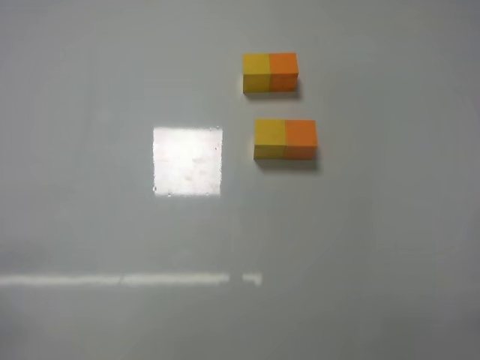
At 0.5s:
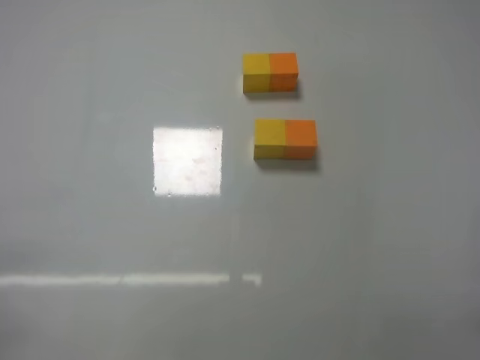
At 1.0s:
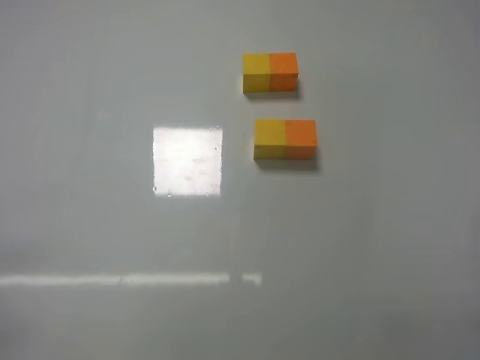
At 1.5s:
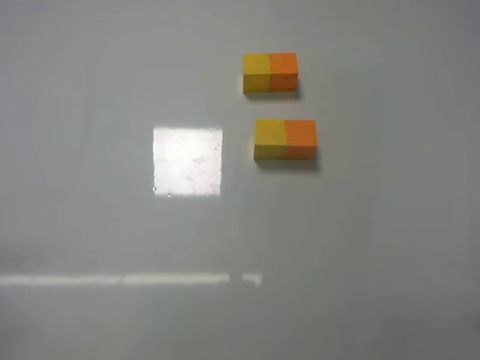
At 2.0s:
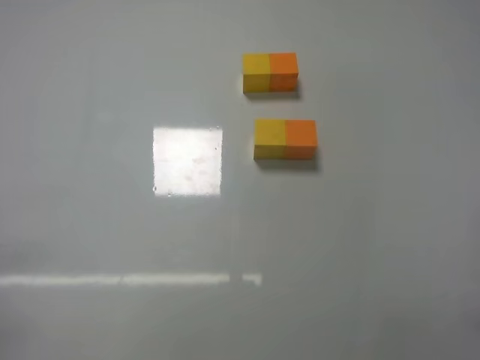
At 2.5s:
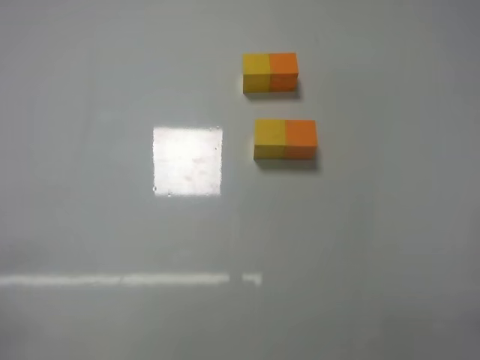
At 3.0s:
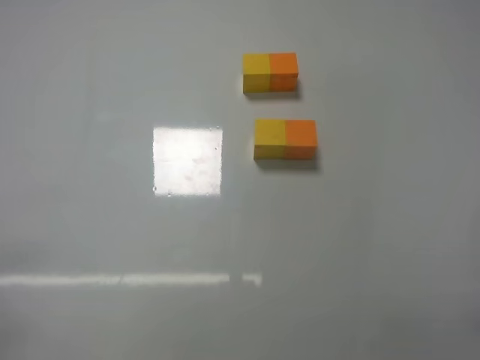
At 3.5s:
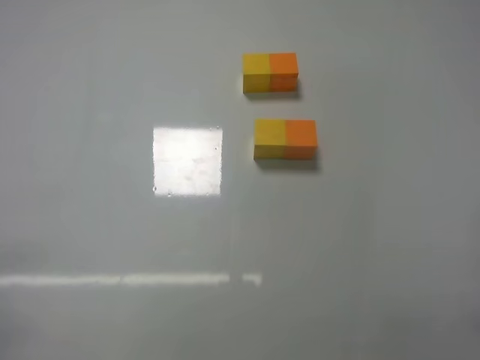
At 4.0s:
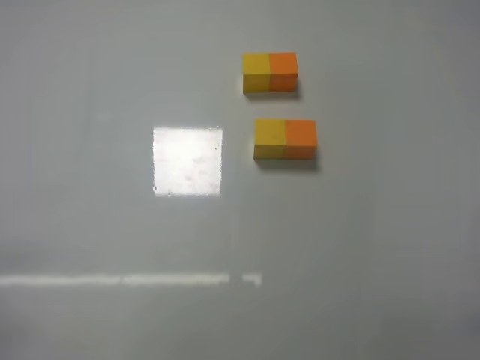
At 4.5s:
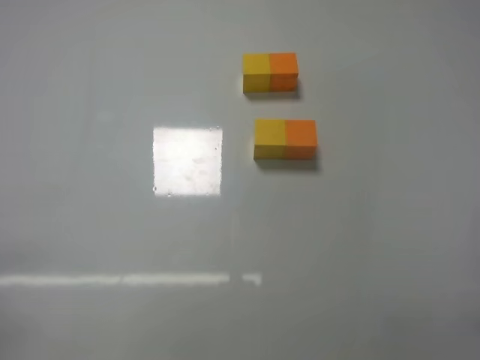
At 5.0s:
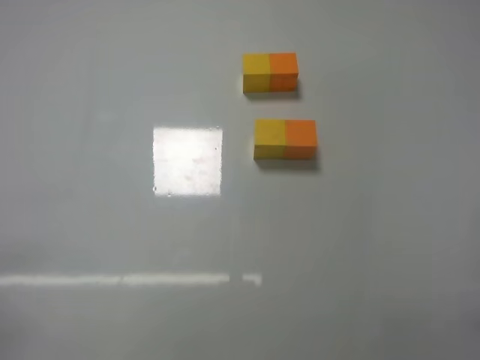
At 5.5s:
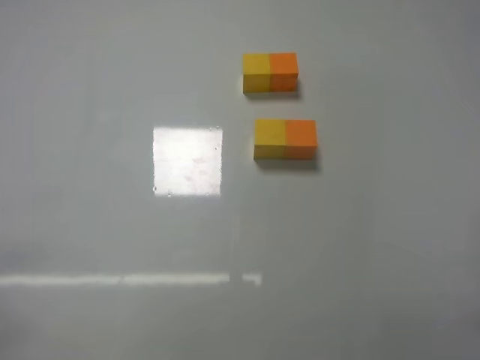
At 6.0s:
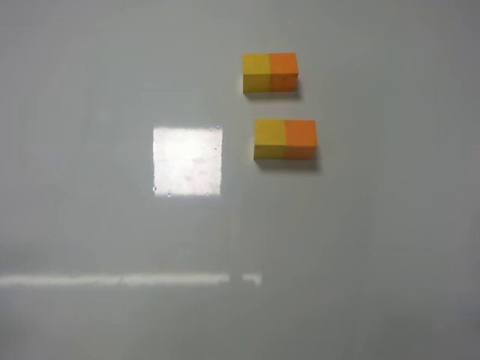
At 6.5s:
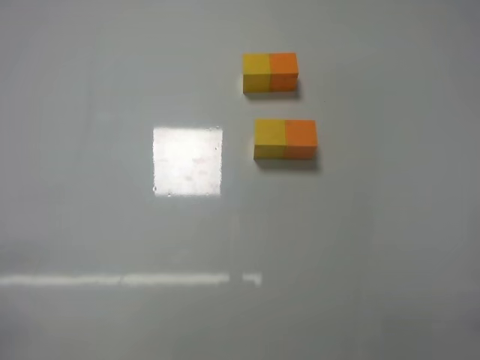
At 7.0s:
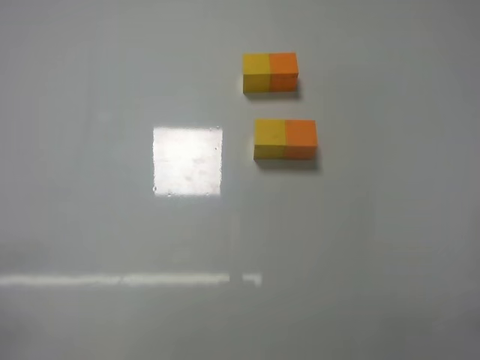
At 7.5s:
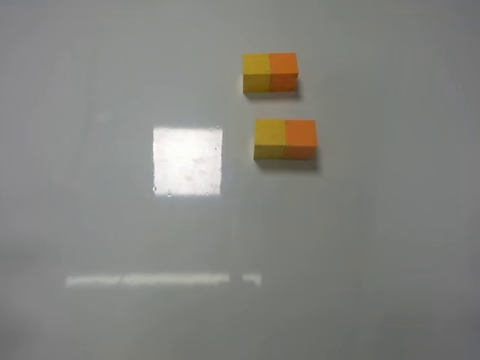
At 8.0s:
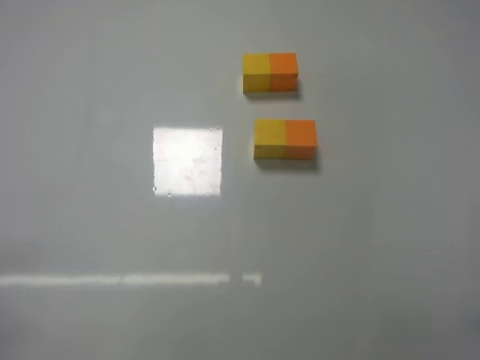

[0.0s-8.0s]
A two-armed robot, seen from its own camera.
Task of the whole recording: According to the building block template in front, assemble the scattered blocks together.
0.0s to 8.0s: Both grippers stay put.
